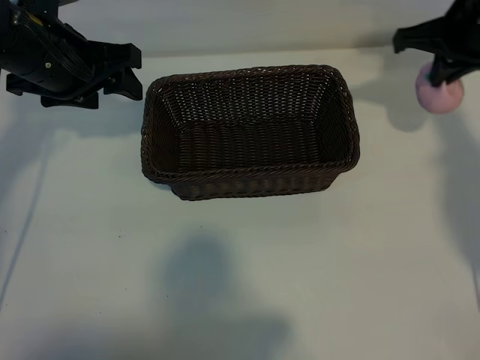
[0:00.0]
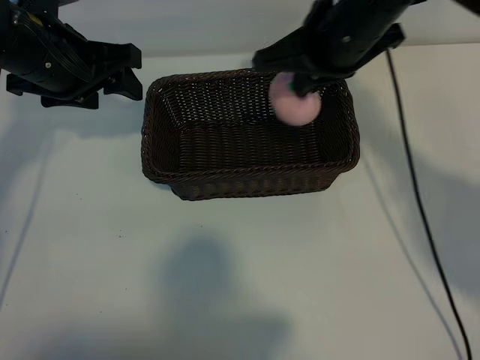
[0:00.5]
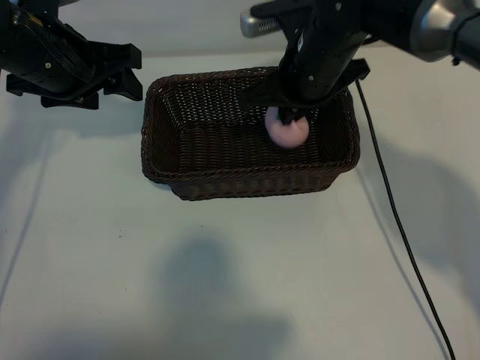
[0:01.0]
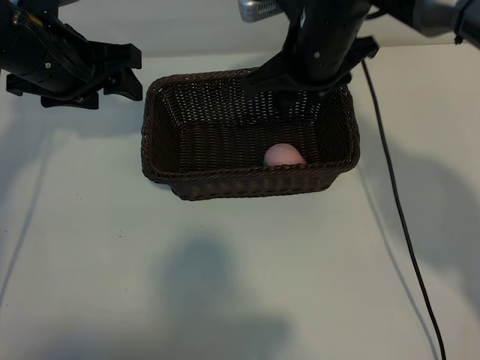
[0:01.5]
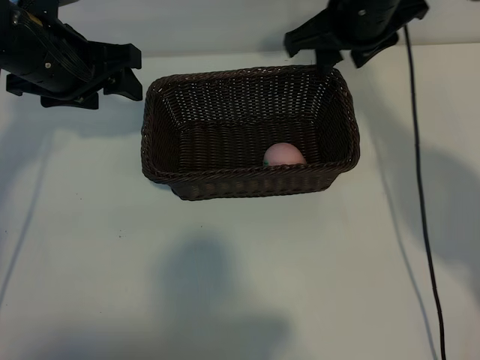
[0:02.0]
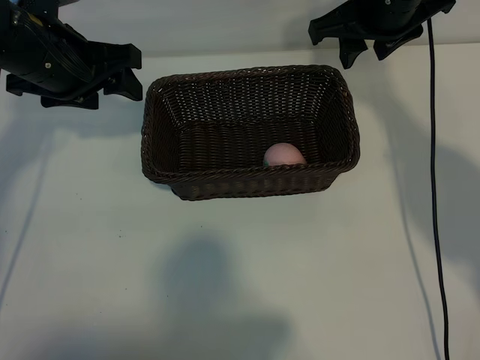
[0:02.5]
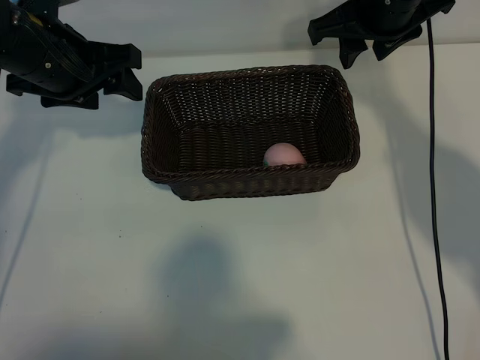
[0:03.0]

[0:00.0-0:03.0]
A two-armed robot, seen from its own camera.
Task of the whole recording: pick up the peach and put it into the basket.
Step, 0:00.0 to 0:01.0: Place the peach in the basket with right gripper.
